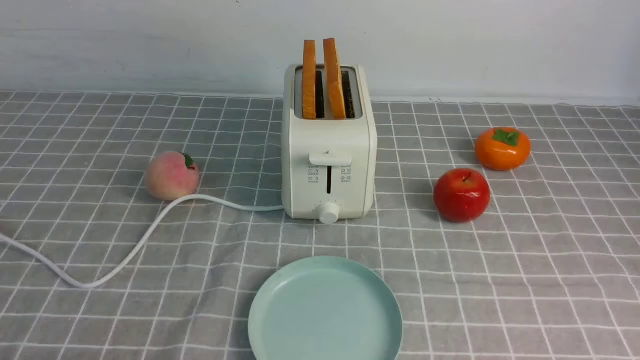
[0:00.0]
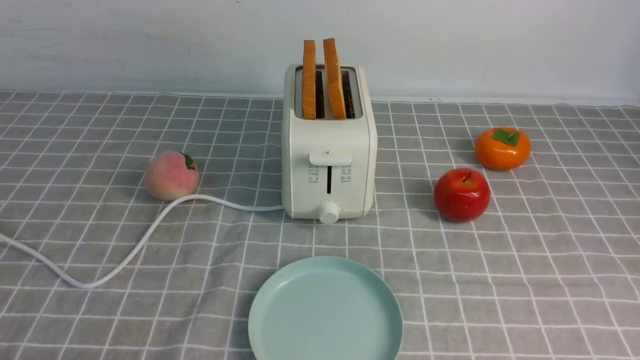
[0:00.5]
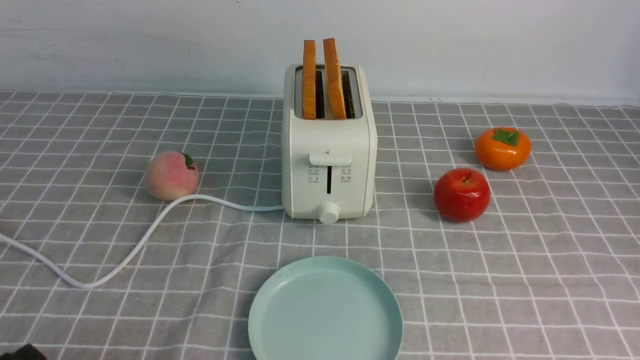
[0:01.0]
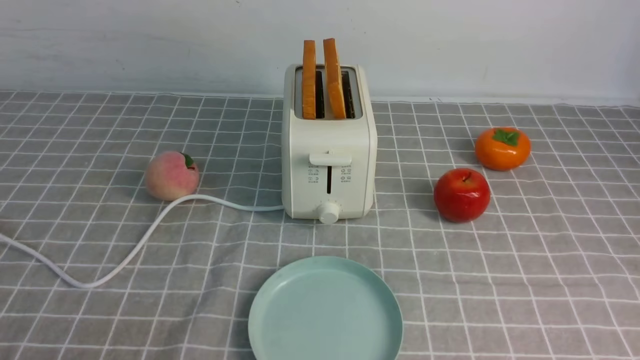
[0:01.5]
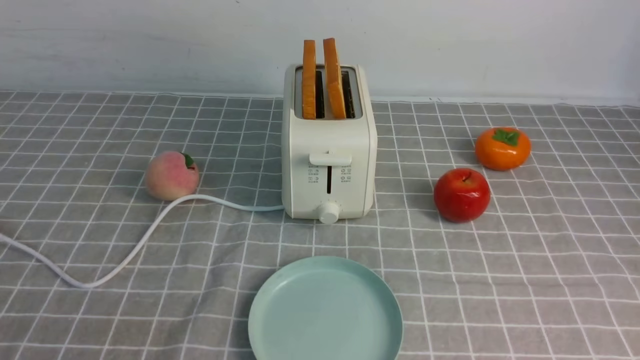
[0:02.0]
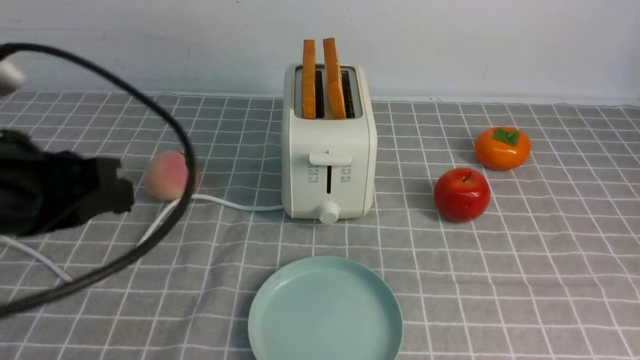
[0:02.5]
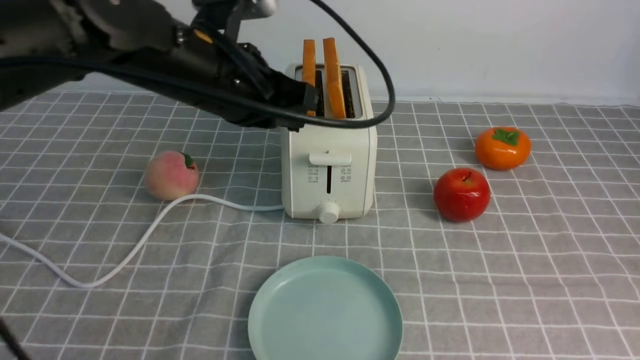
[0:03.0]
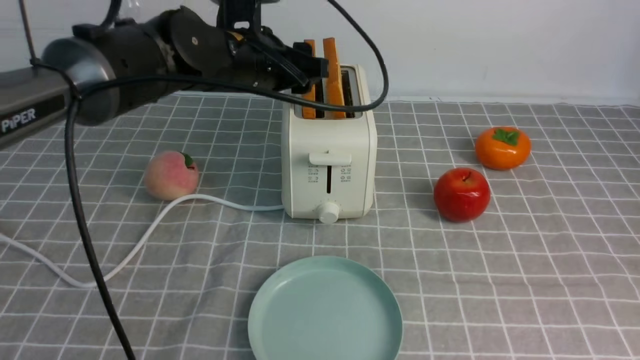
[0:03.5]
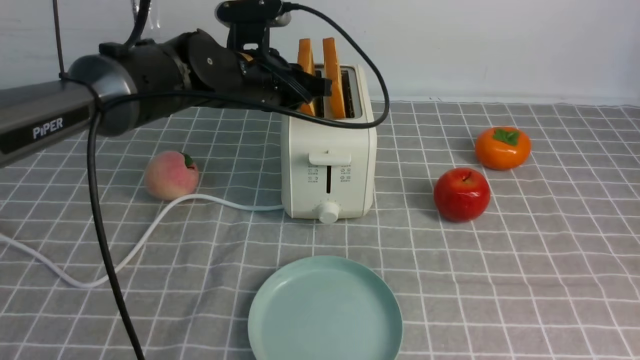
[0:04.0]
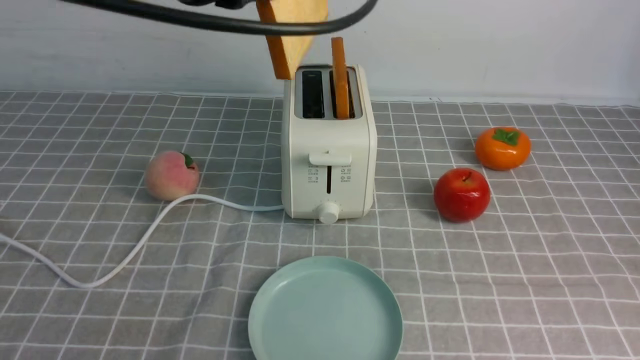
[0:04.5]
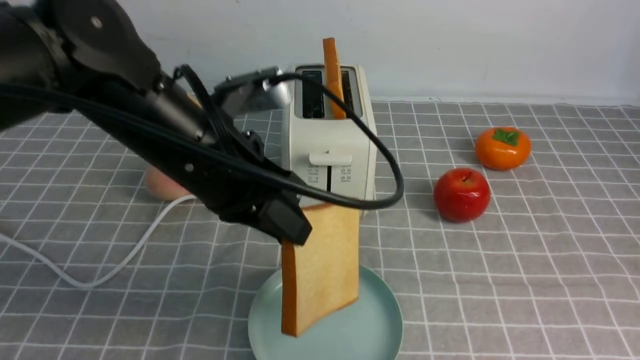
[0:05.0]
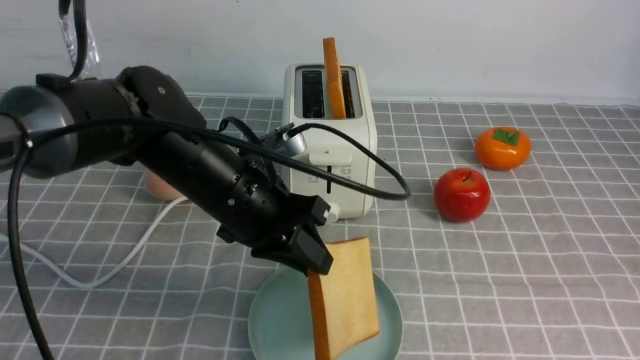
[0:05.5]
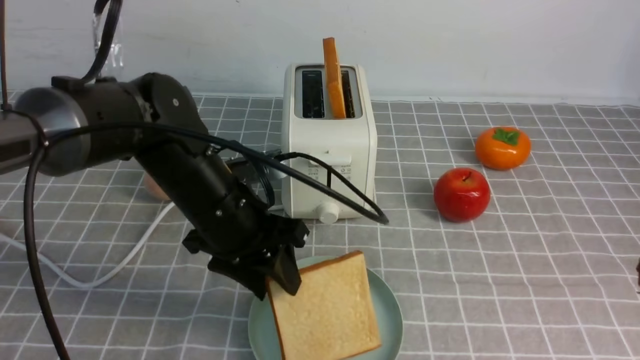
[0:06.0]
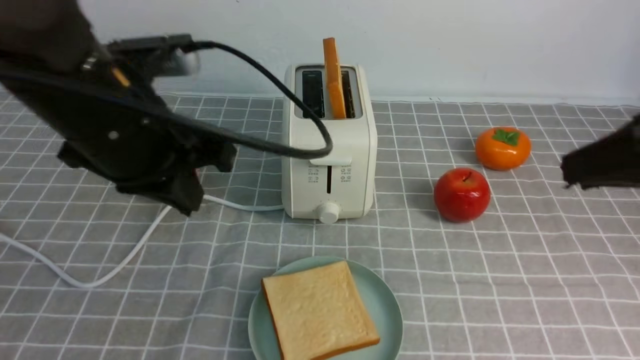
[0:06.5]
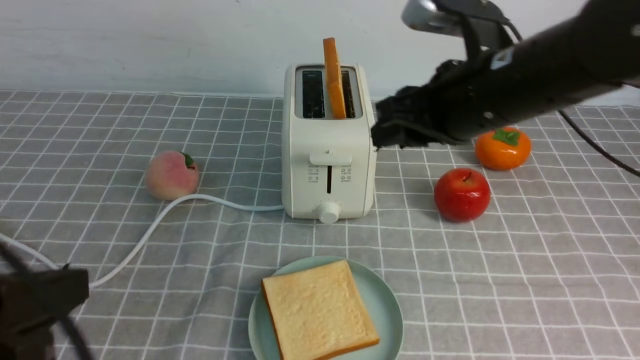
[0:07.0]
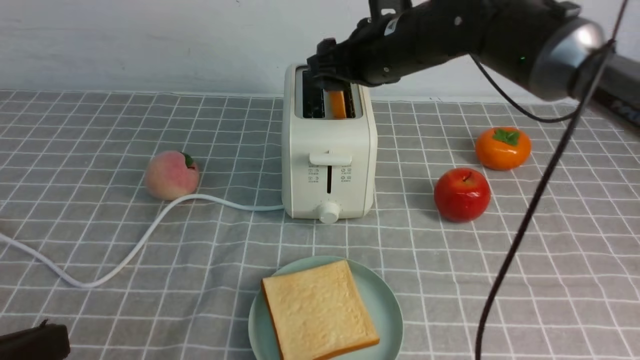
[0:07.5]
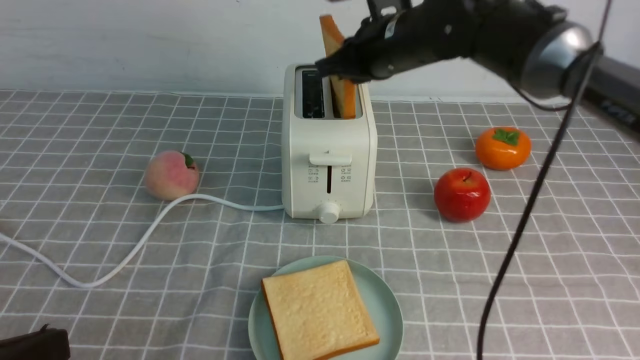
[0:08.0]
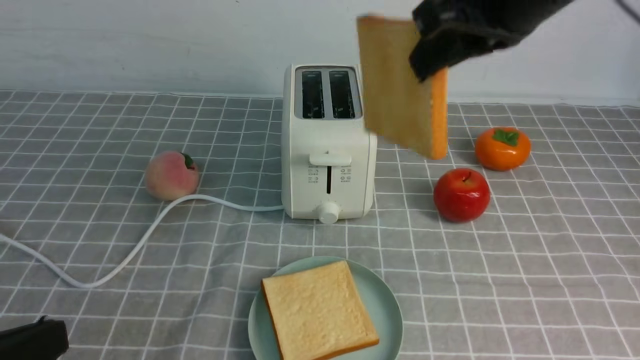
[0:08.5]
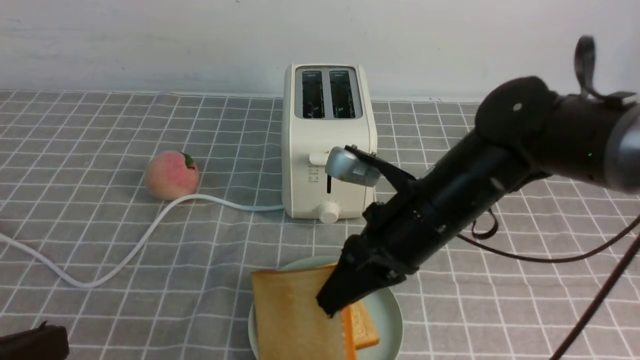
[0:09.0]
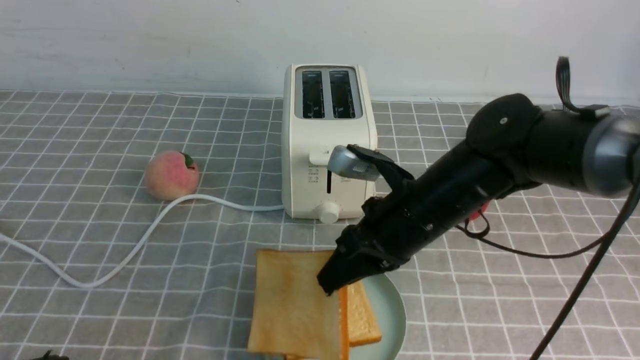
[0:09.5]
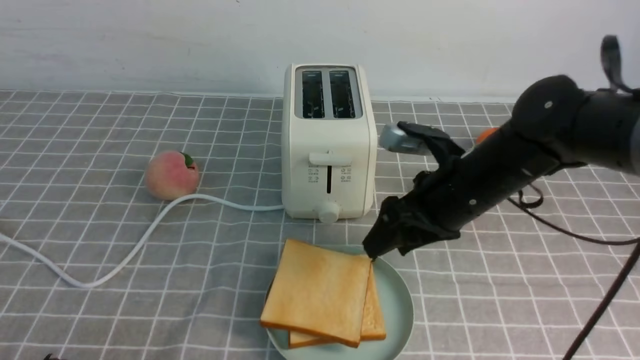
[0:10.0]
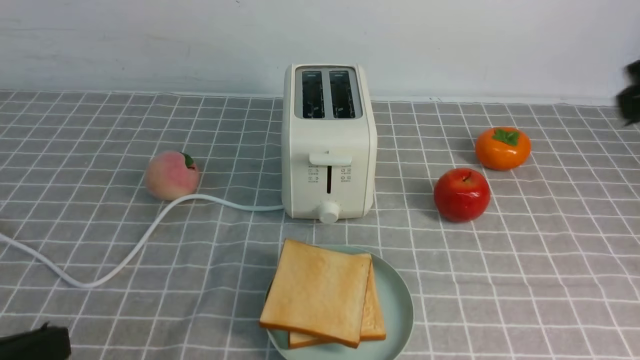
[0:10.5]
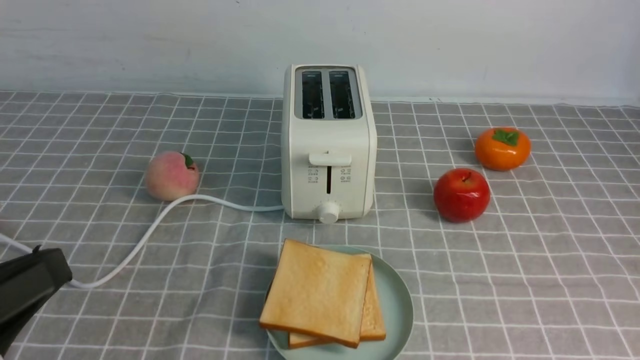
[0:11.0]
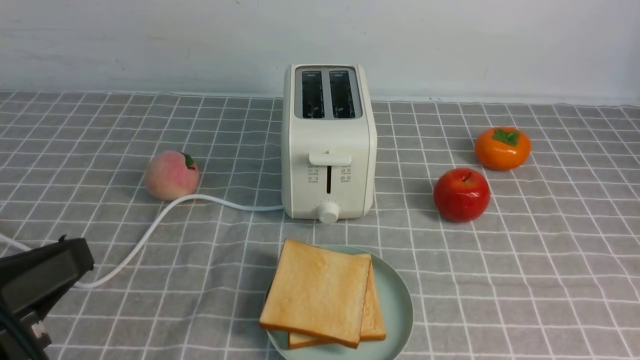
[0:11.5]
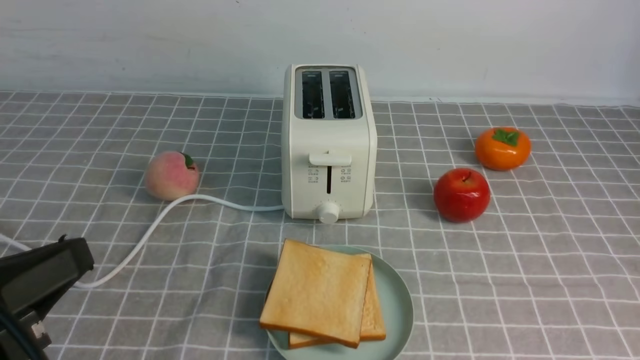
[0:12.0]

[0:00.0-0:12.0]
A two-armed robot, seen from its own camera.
Task of the whole recording: take toasted bread from bread machine on grey coffee table place on plate.
Step, 0:00.0 to 0:04.0: use the left arm to take out a slice of bread.
Step, 0:04.5 to 0:06.0: use the left arm to put a slice of bread into the empty plate.
Step, 0:06.5 to 0:08.0: use the right arm to take out a slice of bread.
Step, 0:08.5 to 0:10.0: use the right arm to put a slice of bread into the plate.
0:02.0 to 0:04.0: The left gripper is displaced forward and to the right by approximately 40 cm, and opens up. Meanwhile the right gripper shifts roughly 10 cm upward and forward.
0:04.0 to 0:06.0: The left gripper moves backward and downward, some 15 cm.
0:06.0 to 0:08.0: The right gripper moves forward and to the left, approximately 35 cm, and opens, then closes once more. The left gripper heads backward and to the left, covering about 30 cm, and closes.
0:08.0 to 0:10.0: The right gripper heads downward, backward and to the right, covering approximately 15 cm, and opens up.
0:10.0 to 0:12.0: The right gripper heads backward and to the right, covering approximately 40 cm, and closes up.

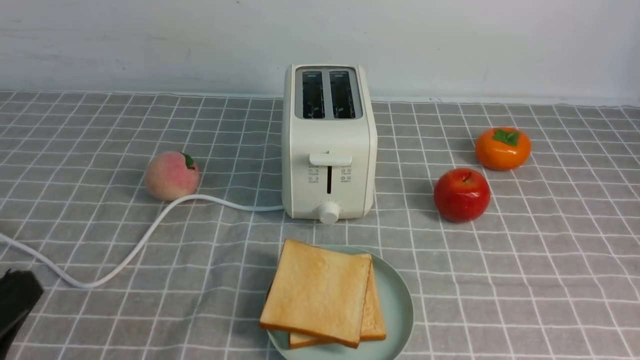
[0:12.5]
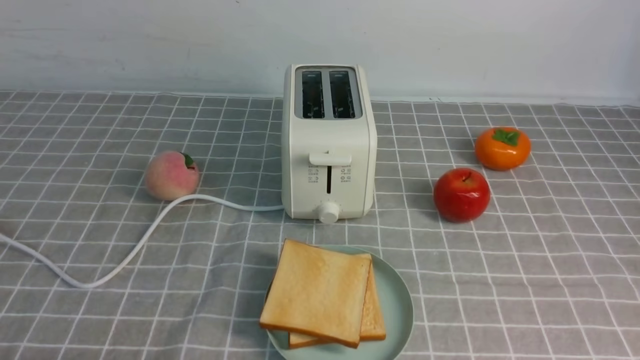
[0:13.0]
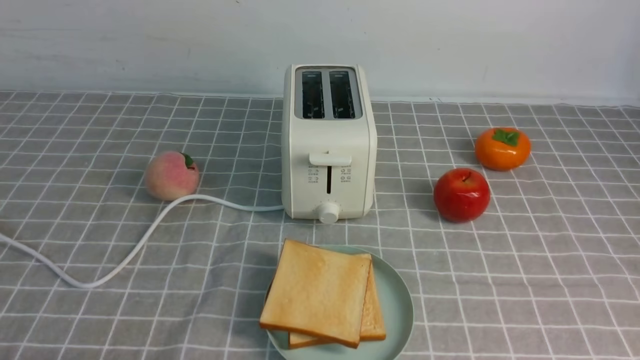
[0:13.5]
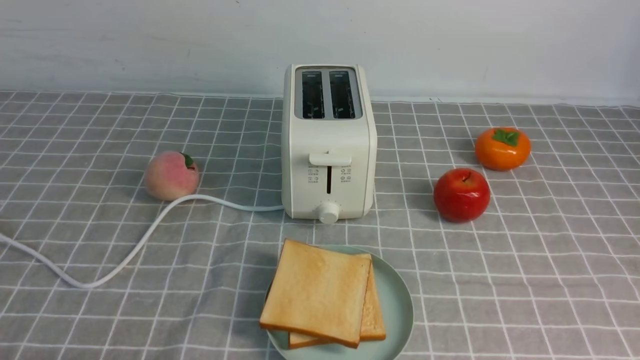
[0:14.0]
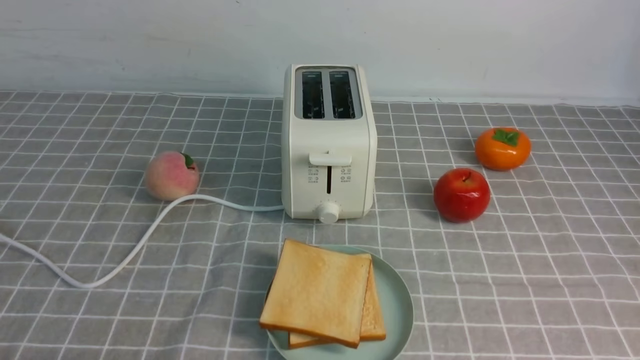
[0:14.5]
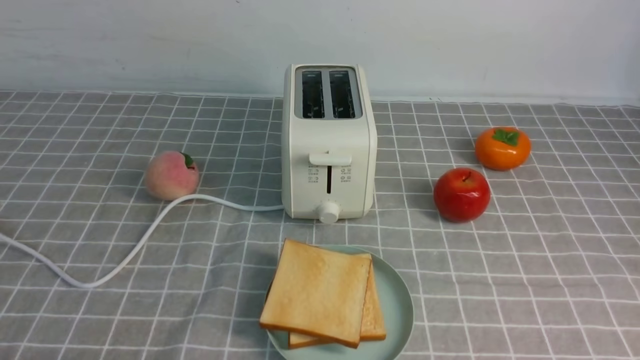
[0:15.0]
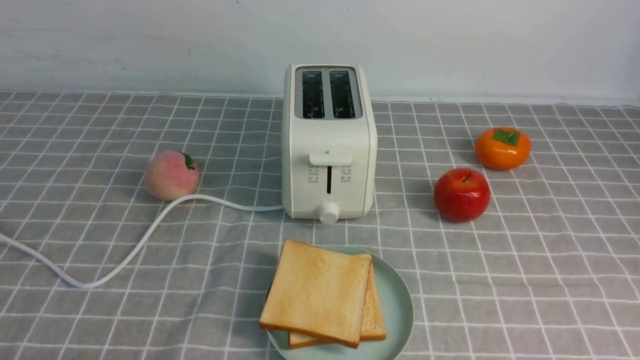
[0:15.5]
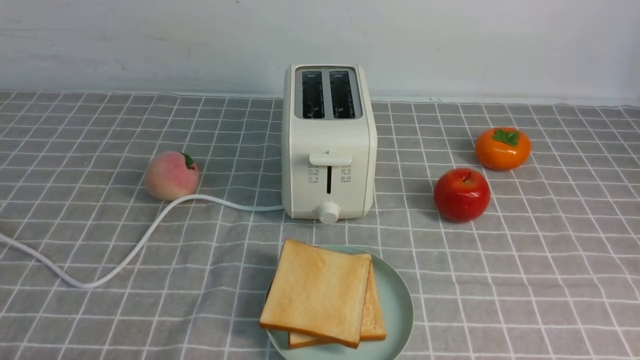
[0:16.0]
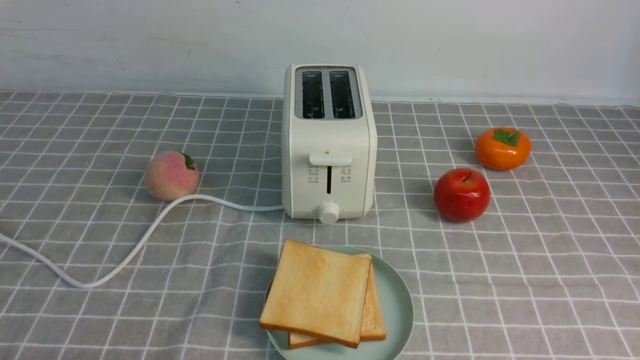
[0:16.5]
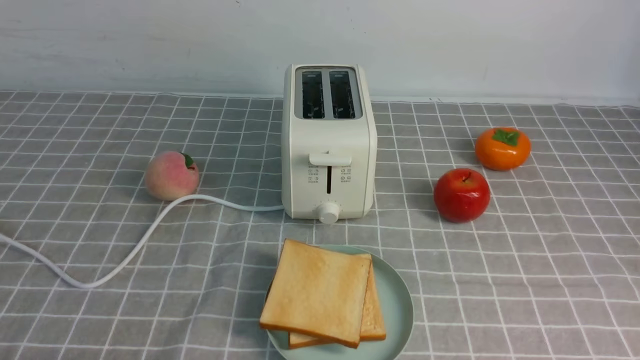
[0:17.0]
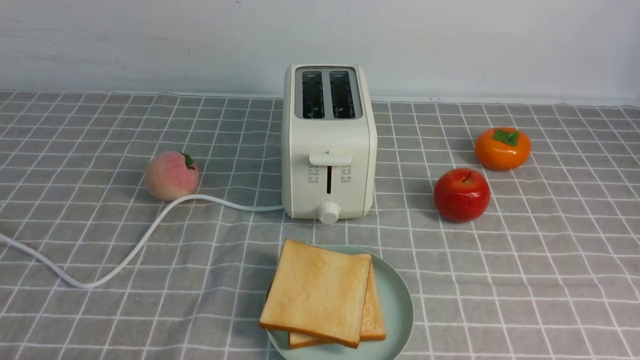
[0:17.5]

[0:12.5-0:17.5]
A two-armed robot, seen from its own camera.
Task of the whole recording: take toasted bread from bread machine on grey coffee table place on plate.
0:12.5 to 0:15.0: The left gripper is displaced downward by roughly 10 cm.
